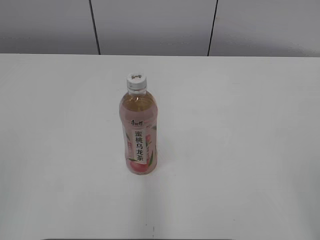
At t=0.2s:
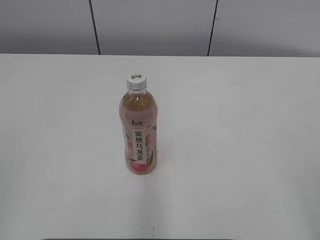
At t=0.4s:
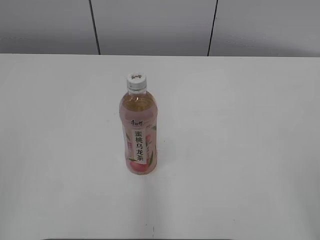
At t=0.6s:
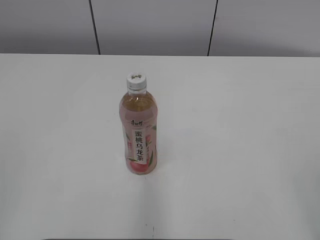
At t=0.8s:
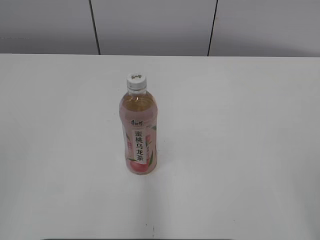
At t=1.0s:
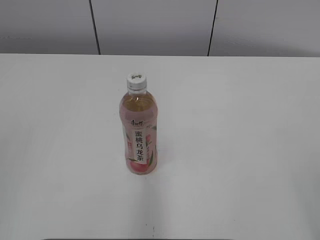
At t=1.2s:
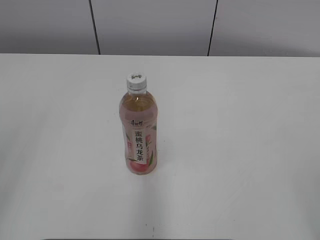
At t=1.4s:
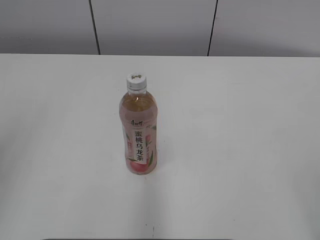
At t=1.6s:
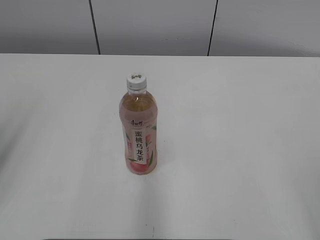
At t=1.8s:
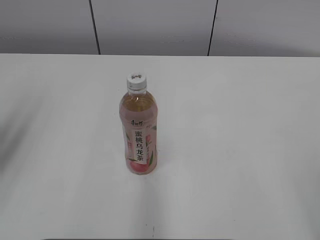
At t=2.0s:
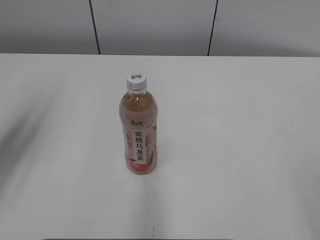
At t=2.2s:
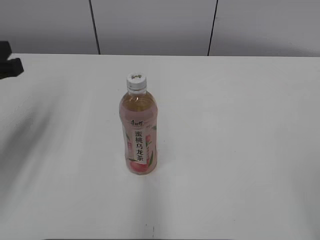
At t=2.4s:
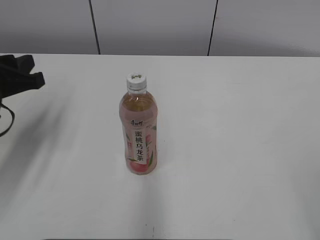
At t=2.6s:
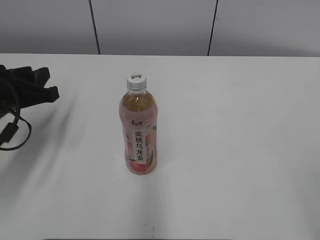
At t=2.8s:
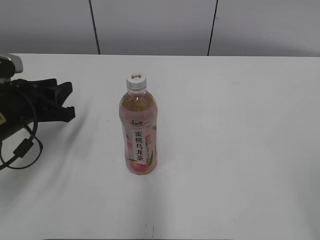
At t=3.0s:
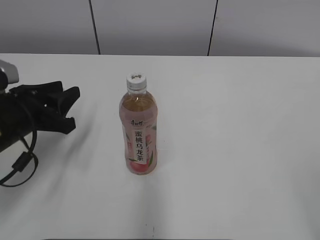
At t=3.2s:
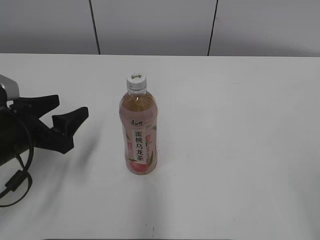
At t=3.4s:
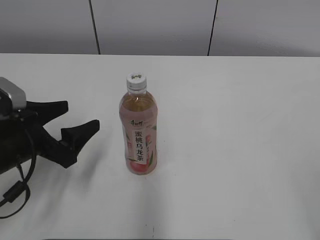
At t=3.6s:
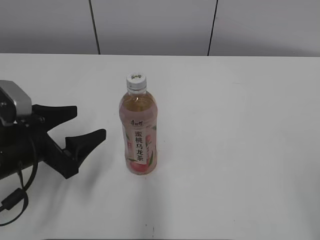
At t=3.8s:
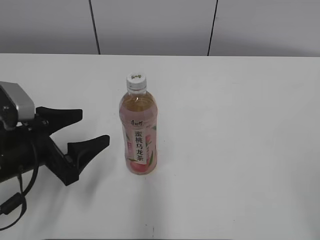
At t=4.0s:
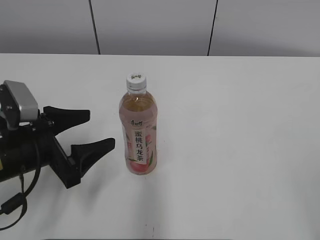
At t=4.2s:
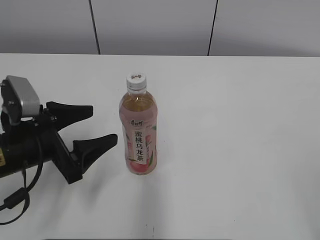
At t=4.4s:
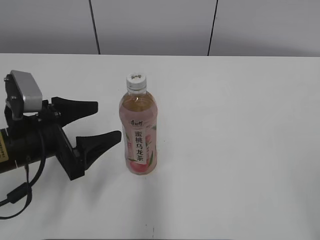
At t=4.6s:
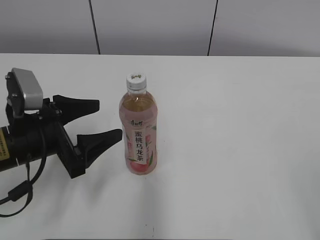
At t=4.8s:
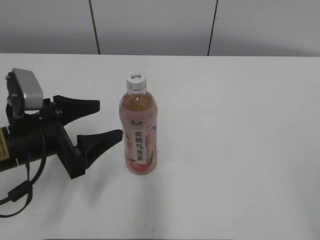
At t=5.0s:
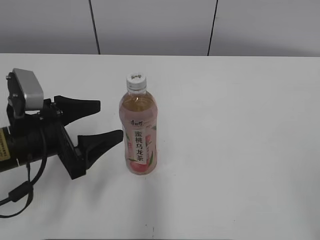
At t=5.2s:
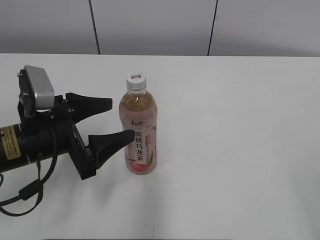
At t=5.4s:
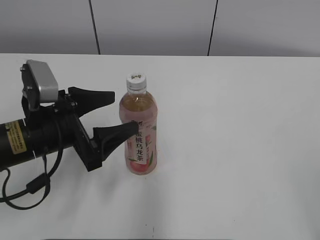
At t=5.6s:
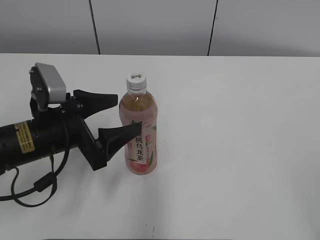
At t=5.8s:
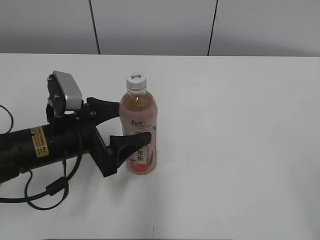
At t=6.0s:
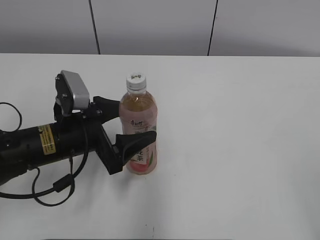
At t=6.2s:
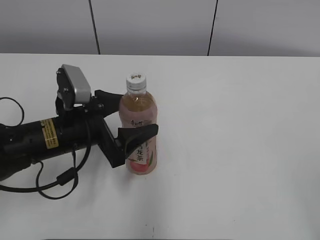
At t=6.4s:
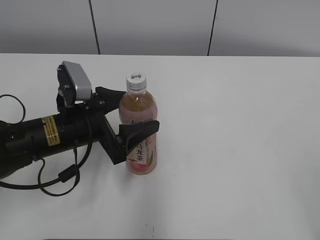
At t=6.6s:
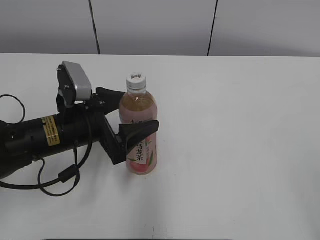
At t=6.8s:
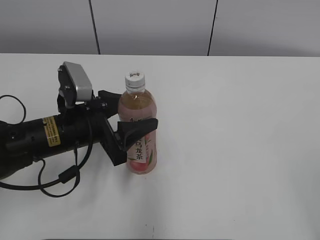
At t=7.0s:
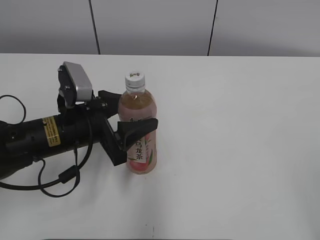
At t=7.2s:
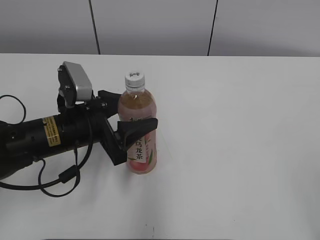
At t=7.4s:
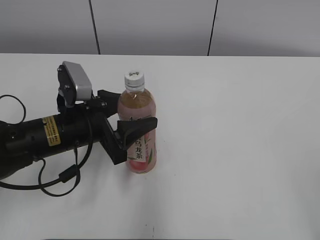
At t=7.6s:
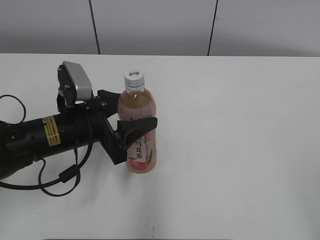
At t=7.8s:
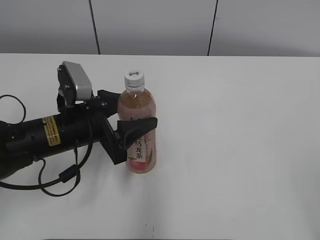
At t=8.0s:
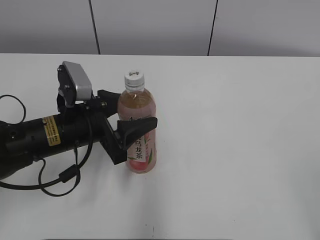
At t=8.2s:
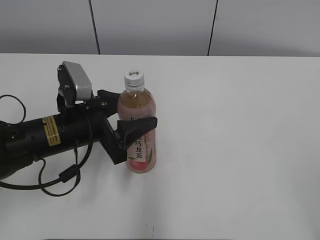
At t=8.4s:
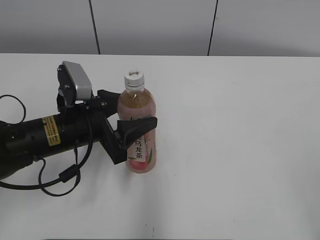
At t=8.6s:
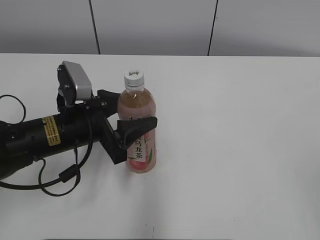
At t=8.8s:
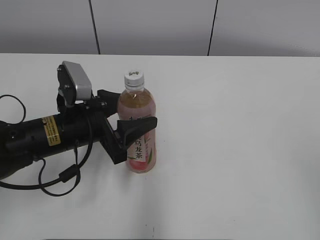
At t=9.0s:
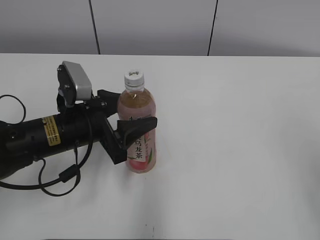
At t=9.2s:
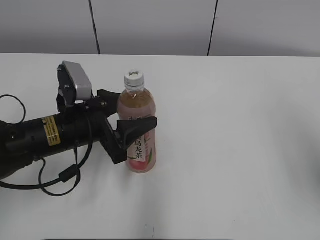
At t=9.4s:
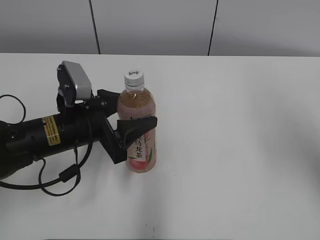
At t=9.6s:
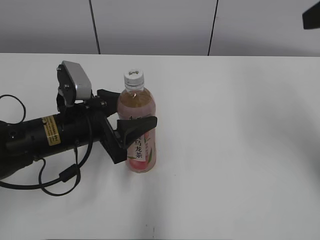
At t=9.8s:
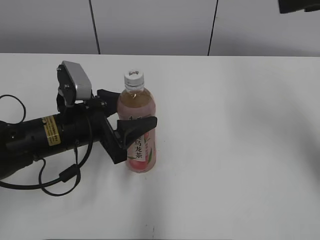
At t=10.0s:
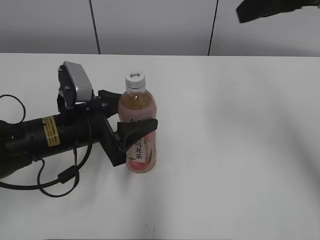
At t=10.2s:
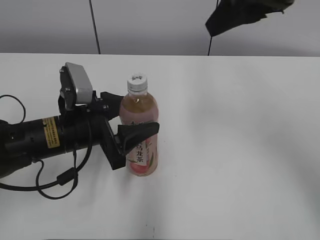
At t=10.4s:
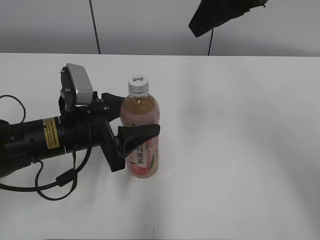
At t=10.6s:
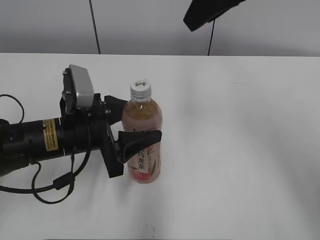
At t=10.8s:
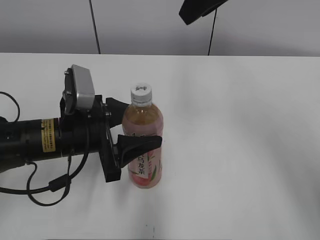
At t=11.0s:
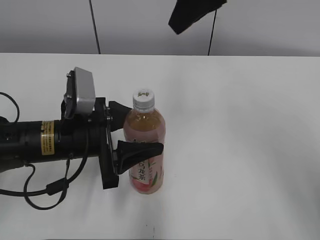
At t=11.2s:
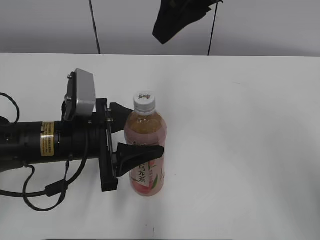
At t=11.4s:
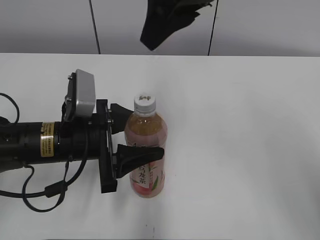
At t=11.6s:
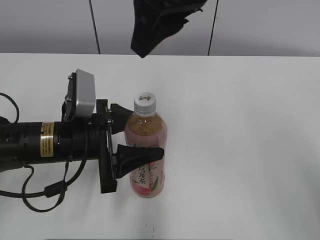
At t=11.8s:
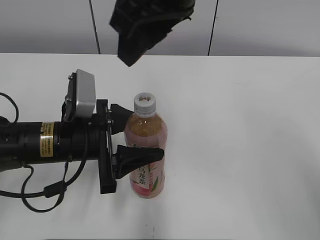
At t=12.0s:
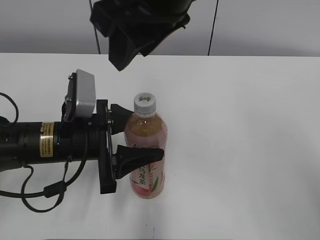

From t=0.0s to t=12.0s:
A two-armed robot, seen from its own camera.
Step, from t=0.0s to t=6.6s: Grab the Peach Oolong Tea with the left hand.
Step, from t=6.8s to t=11.2s: Move the Peach Oolong Tea from left to right.
From t=1.6s to t=3.0s: The left gripper is displaced downward, forward and to the right by roughly 25 cm.
From t=3.0s to t=4.4s: The left gripper opens up.
From t=4.4s to t=6.0s: The left gripper shifts by some 5 cm.
From t=6.0s to t=7.6s: The left gripper closes.
From t=9.0s to t=10.4s: The right gripper moves forward and to the left, roughly 30 cm.
From t=10.4s to t=12.0s: The right gripper heads to the left and backward, covering approximately 15 cm.

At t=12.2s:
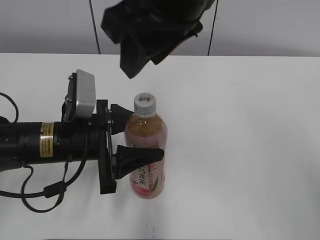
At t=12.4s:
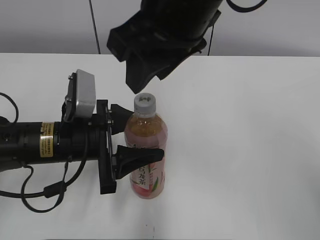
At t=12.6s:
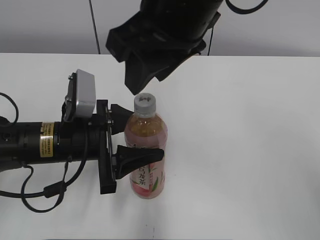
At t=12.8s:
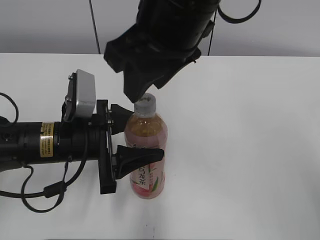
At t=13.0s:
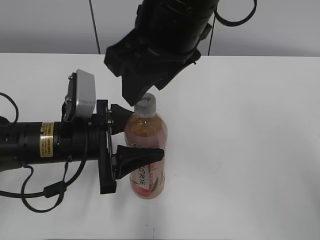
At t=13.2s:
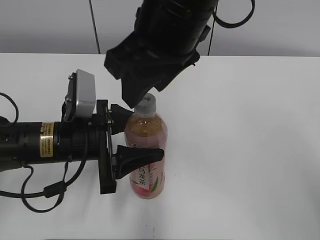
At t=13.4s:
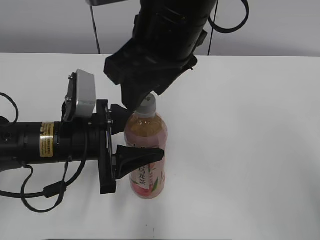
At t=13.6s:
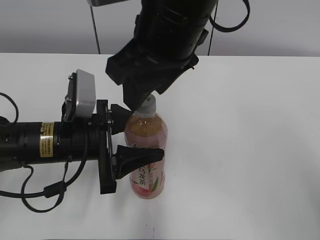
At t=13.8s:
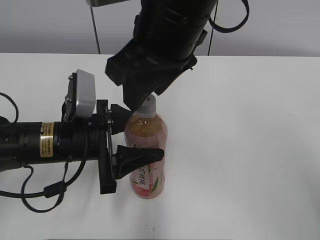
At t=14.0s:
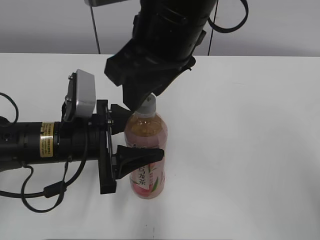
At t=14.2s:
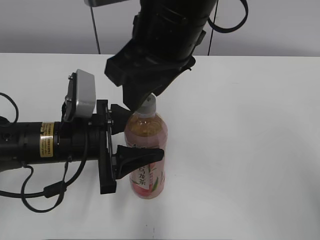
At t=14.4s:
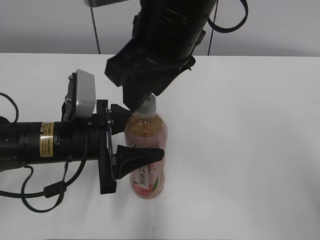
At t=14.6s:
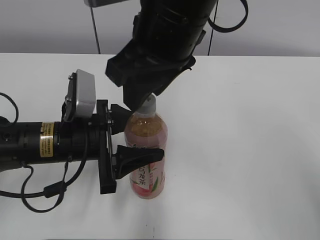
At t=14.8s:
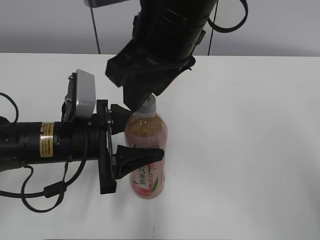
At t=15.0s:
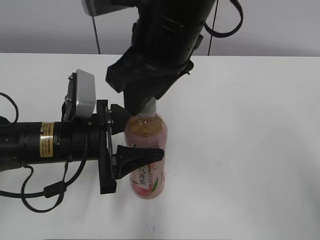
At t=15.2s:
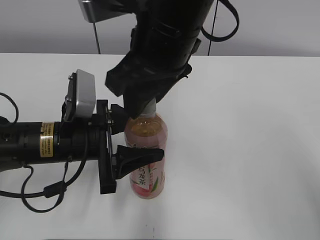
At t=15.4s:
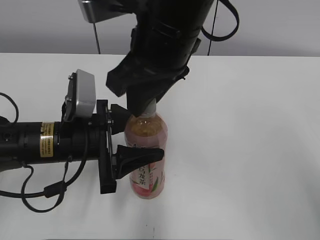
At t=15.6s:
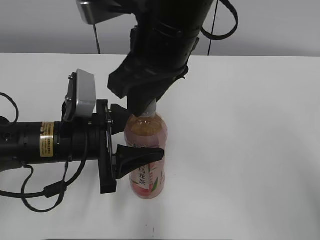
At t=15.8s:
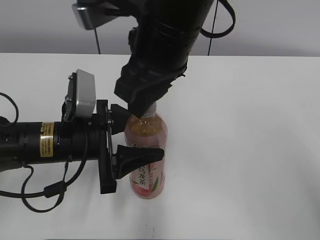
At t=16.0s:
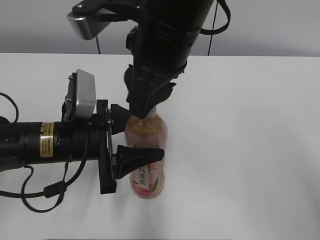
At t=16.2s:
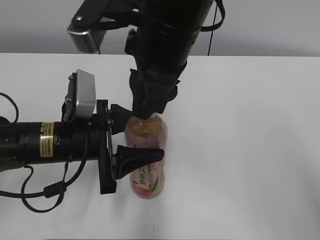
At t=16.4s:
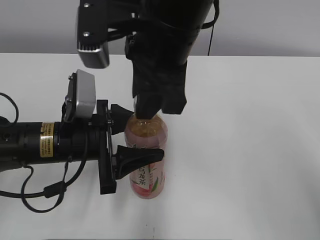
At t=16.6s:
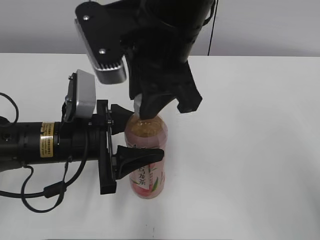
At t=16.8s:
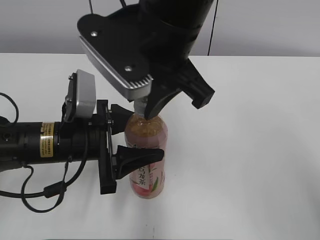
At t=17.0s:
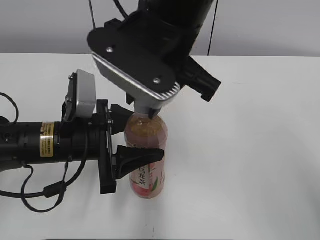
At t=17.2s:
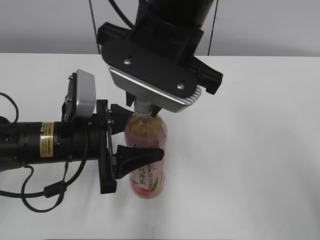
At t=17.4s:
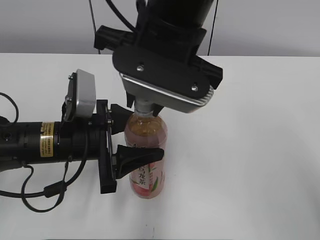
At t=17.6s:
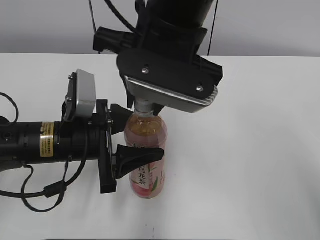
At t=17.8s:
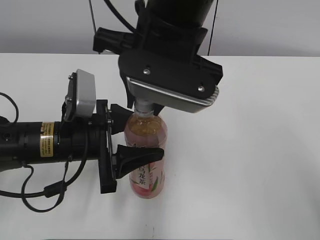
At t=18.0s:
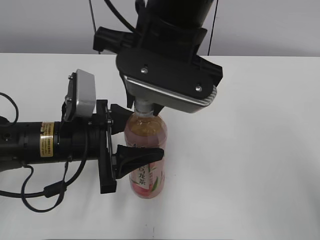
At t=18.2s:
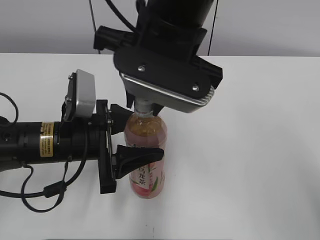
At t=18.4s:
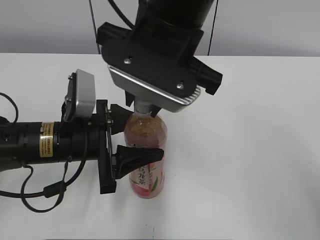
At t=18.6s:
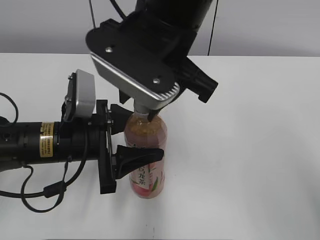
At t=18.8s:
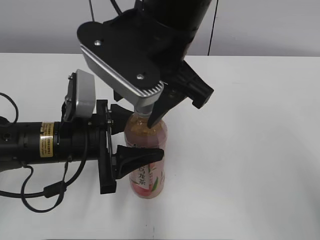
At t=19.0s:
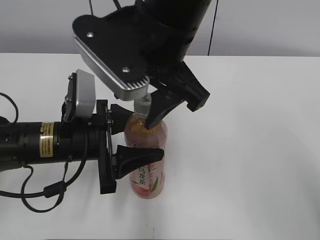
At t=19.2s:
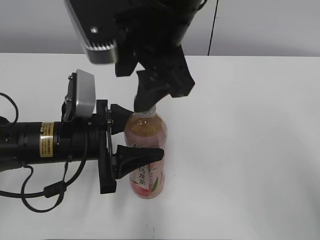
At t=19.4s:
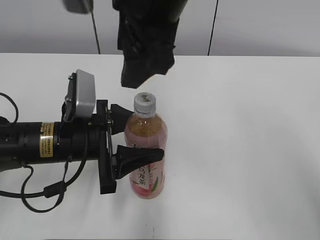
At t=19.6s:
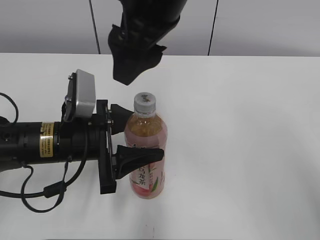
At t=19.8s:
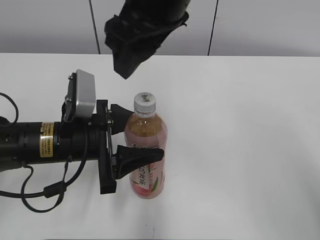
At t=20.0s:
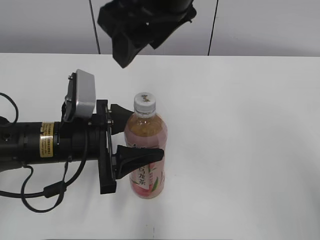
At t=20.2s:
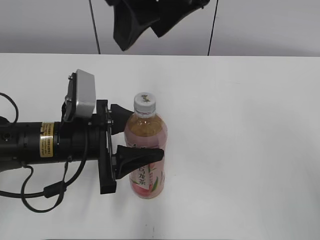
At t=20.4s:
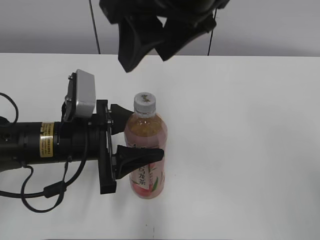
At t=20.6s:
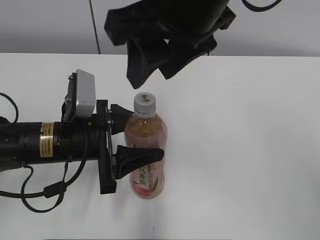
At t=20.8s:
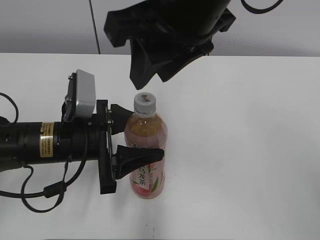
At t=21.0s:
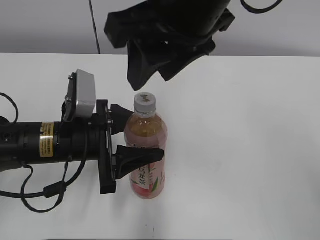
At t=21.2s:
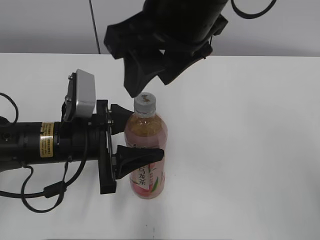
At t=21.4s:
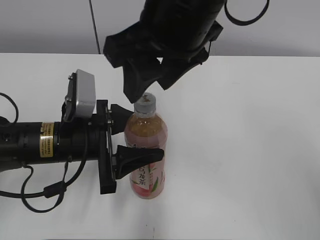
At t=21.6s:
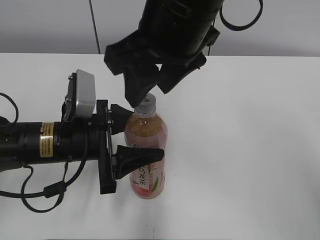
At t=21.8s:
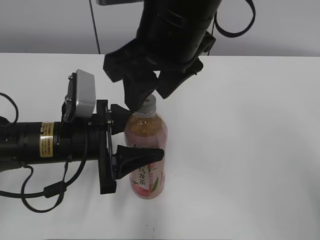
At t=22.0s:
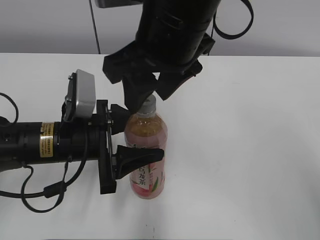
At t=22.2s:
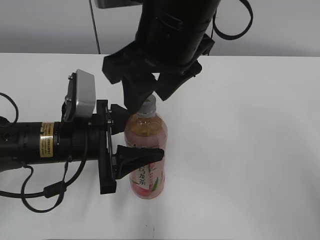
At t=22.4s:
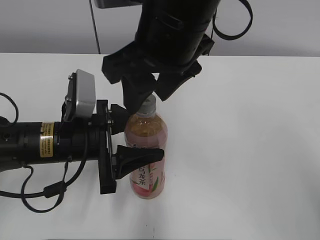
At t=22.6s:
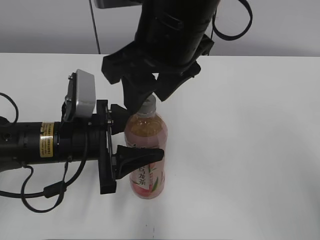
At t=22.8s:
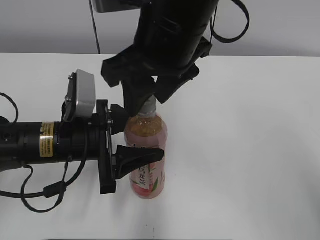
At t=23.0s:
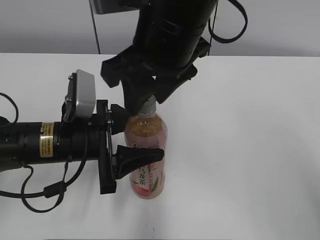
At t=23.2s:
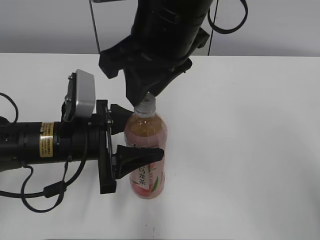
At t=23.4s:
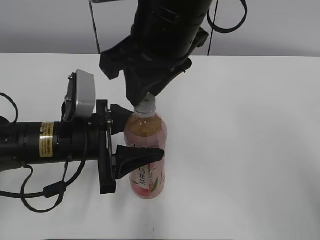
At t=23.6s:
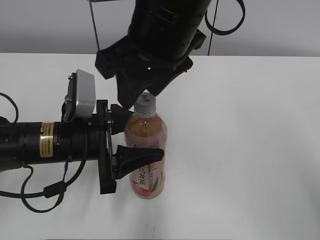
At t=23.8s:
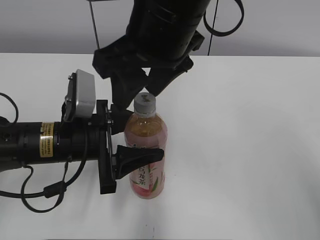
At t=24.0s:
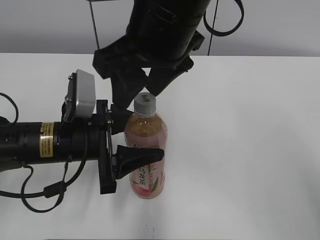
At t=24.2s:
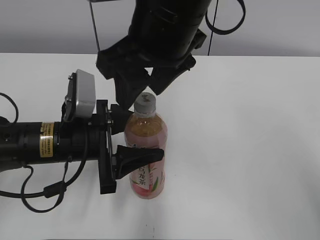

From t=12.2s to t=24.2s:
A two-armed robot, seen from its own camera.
From t=12.2s to t=15.2s: The grippers stay close to where they were, moving slightly.
From t=15.2s to t=16.6s: The right gripper closes its fingers.
From t=18.2s to t=19.8s: The right gripper opens up.
From t=19.8s to t=21.2s: The right gripper closes, then opens again.
From t=21.2s to t=22.6s: The grippers move only a little.
From t=22.6s to t=24.2s: The right gripper closes and opens again.
